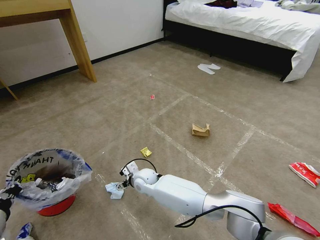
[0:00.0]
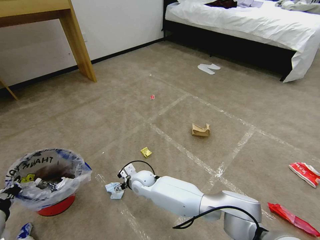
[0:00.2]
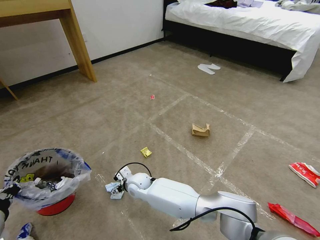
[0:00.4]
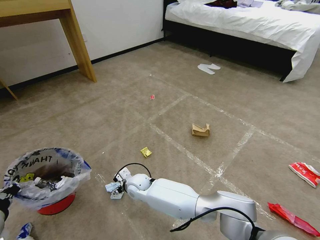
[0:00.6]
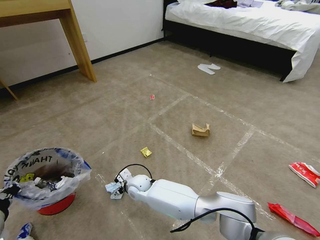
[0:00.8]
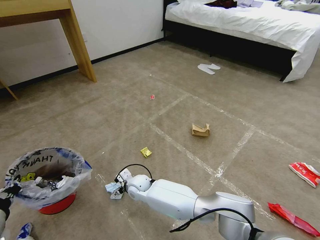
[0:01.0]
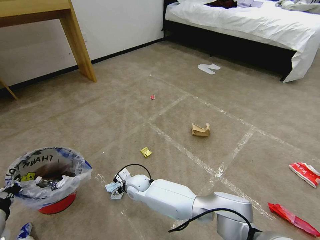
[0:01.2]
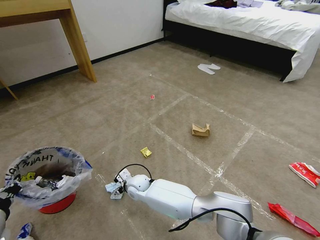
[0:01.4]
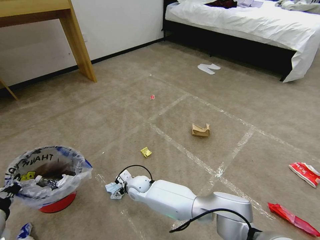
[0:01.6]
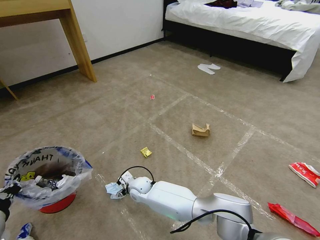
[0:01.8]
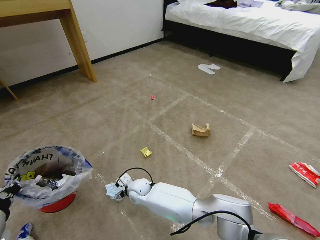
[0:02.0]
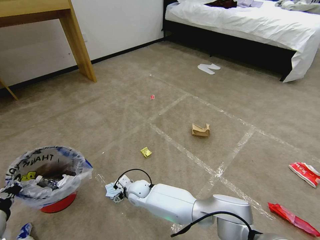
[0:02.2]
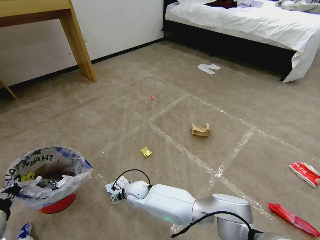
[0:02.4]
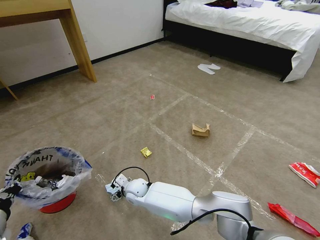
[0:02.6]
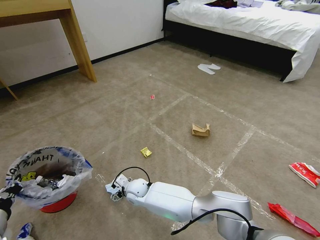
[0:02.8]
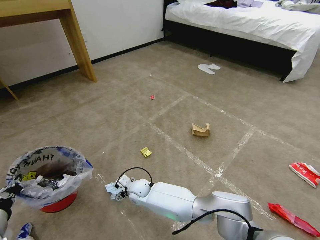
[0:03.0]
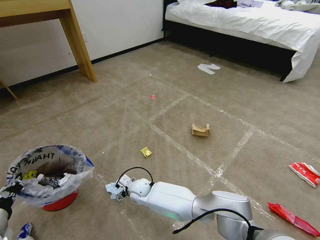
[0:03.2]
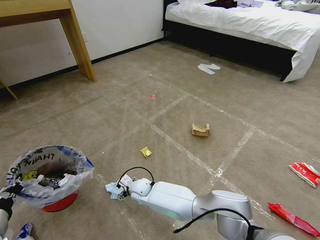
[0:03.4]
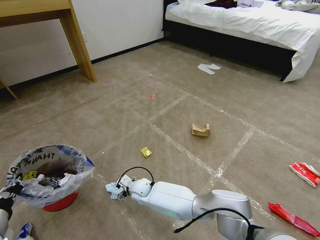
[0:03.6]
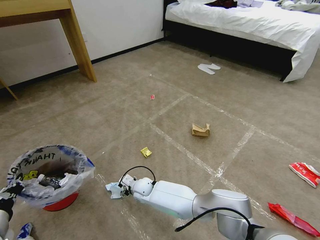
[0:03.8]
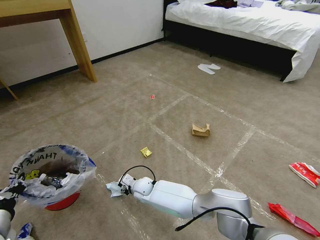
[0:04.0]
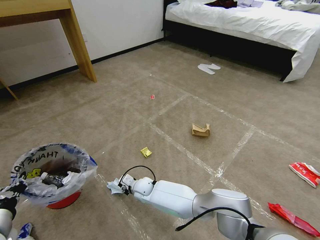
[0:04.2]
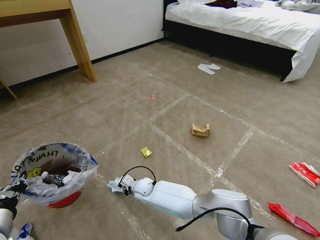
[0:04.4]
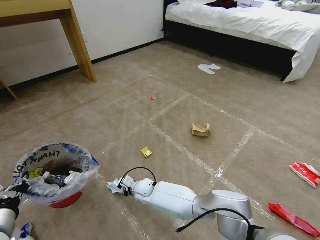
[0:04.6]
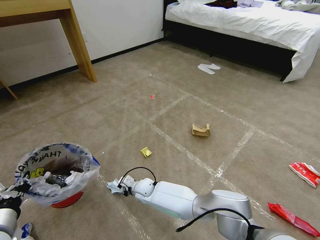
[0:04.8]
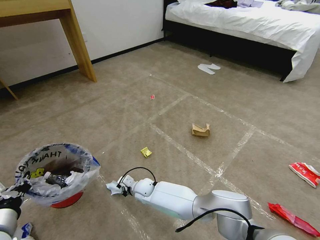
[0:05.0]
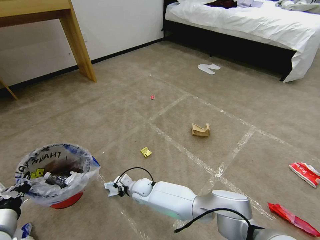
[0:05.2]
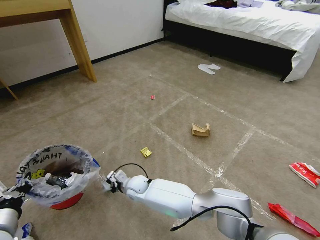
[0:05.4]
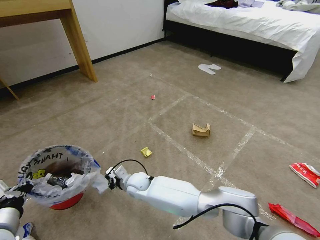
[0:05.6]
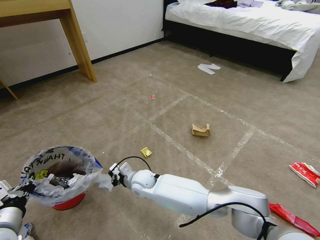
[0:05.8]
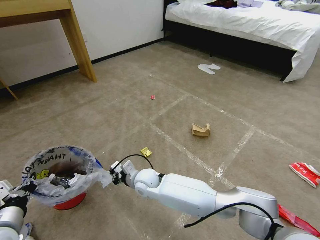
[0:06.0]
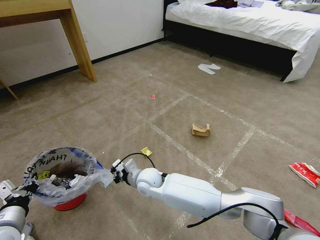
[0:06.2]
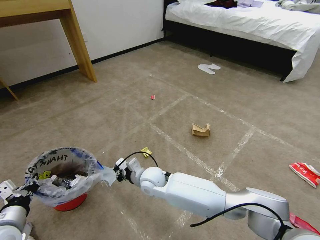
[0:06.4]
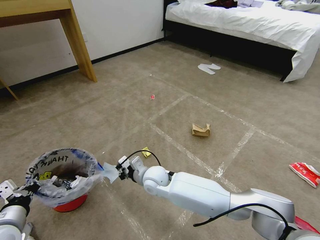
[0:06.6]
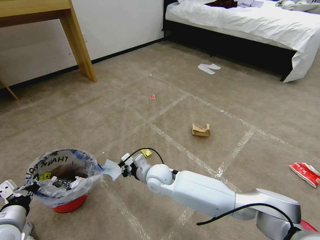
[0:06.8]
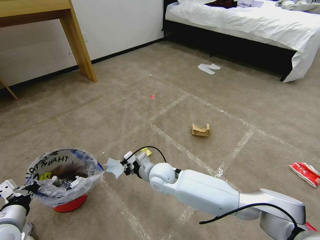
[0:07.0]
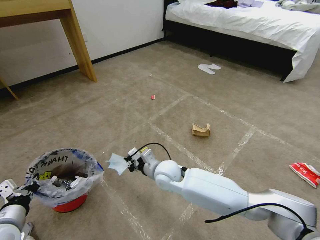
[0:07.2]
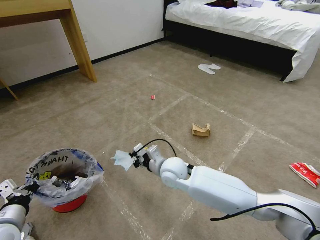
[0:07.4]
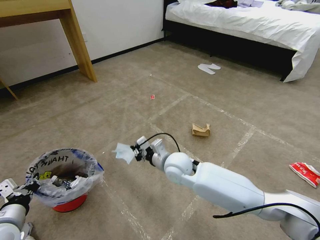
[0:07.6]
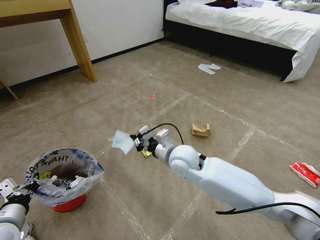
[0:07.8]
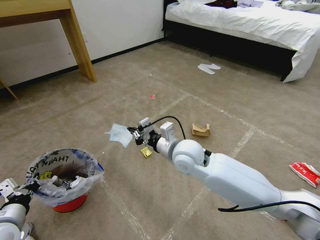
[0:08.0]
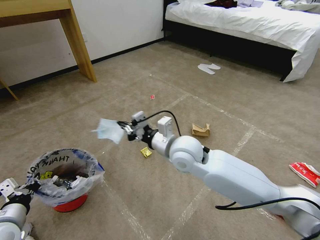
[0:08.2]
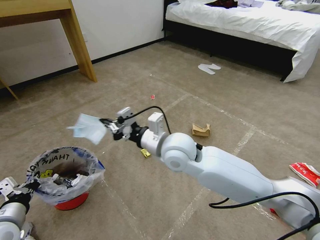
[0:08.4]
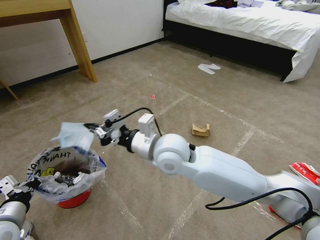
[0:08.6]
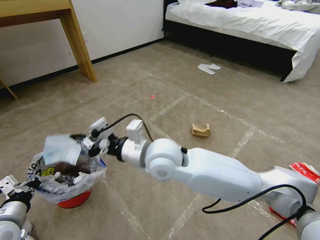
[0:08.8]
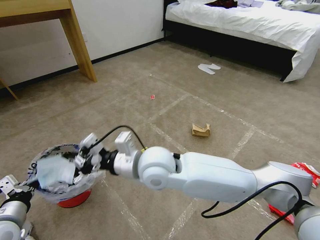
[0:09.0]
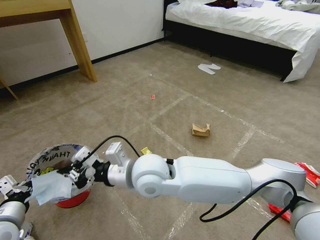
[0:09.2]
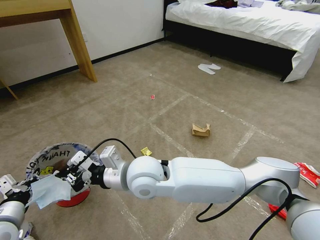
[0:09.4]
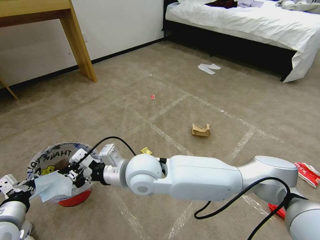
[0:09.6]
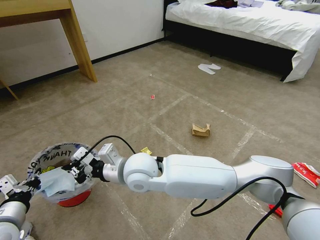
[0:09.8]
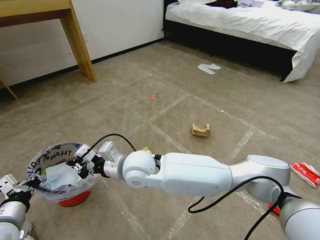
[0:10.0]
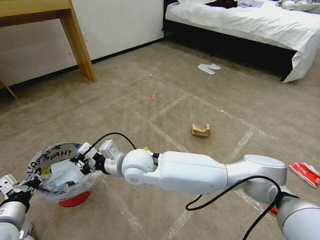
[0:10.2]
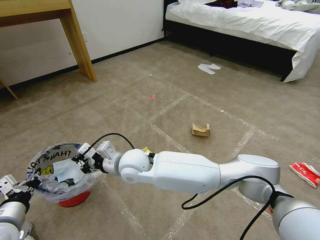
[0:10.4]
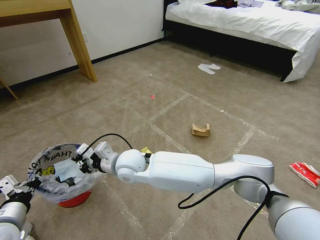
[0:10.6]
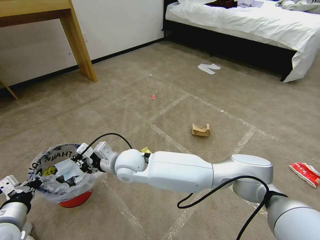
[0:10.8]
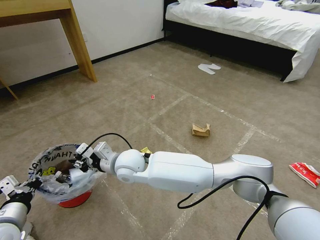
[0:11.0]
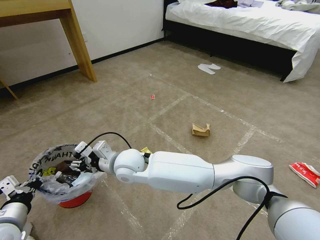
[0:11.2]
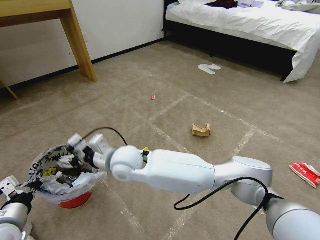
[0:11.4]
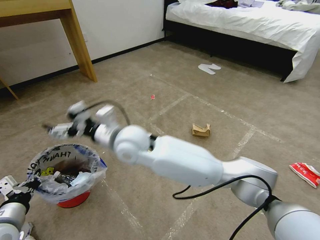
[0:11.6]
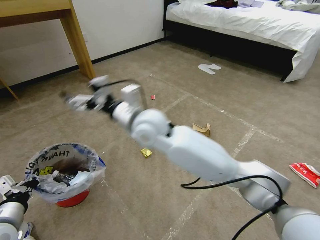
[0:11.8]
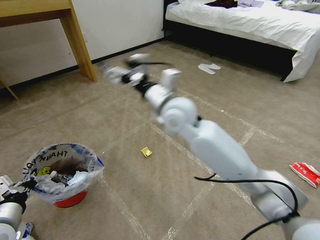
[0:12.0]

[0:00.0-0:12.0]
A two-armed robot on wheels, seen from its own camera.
Task of the whole recording: Pick up the trash bin and place the garbage on the floor into it.
0:00.0 to 0:01.6: There are only small adjustments of the grippers.
0:01.6 to 0:03.0: The grippers stay close to where they were, moving slightly.
0:03.0 to 0:04.4: The right gripper closes.
0:04.4 to 0:06.0: The right gripper travels upward by about 10 cm.
0:06.0 to 0:07.6: The right gripper is displaced to the right and upward by approximately 15 cm.
0:07.6 to 0:09.0: The right gripper shifts approximately 15 cm upward, to the left and backward.
0:09.0 to 0:10.4: The right gripper shifts approximately 10 cm downward, to the left and forward.
0:10.4 to 0:12.0: The right gripper shifts about 20 cm upward, to the right and forward, and opens up.

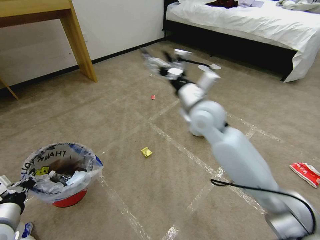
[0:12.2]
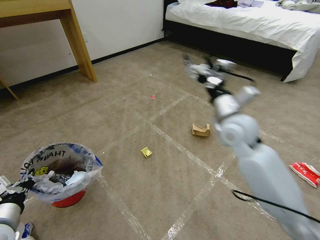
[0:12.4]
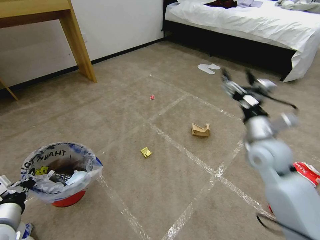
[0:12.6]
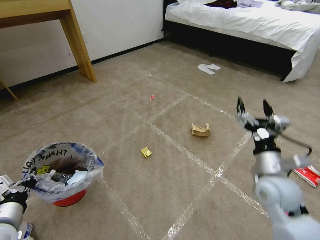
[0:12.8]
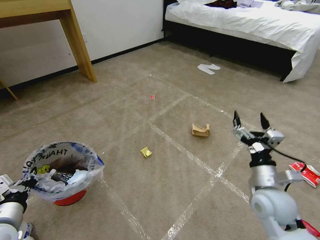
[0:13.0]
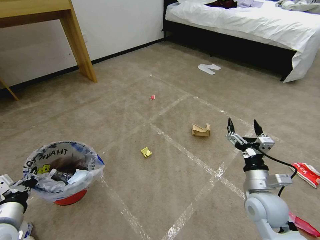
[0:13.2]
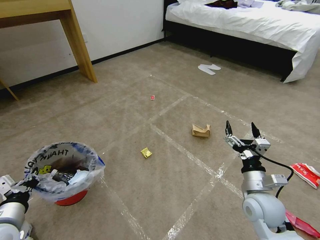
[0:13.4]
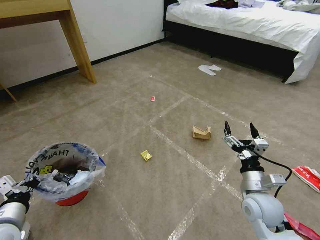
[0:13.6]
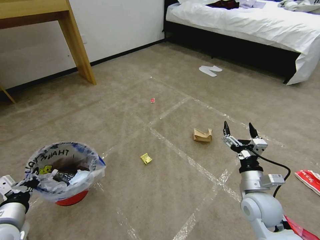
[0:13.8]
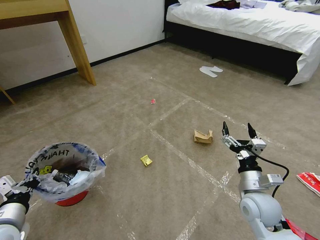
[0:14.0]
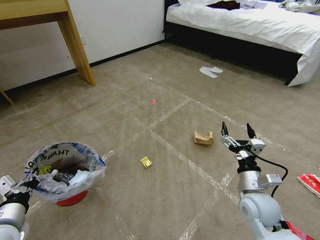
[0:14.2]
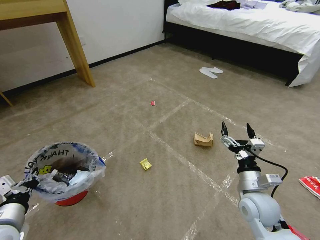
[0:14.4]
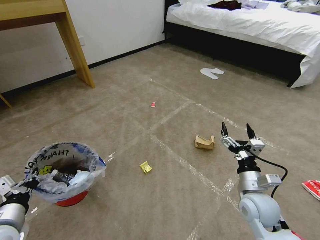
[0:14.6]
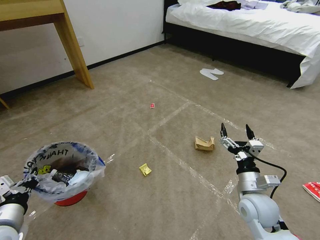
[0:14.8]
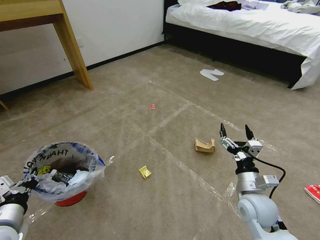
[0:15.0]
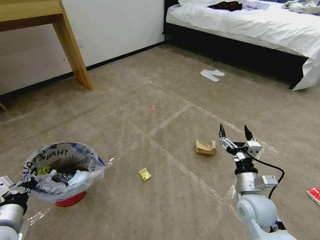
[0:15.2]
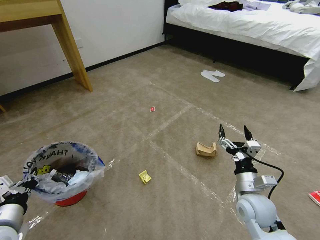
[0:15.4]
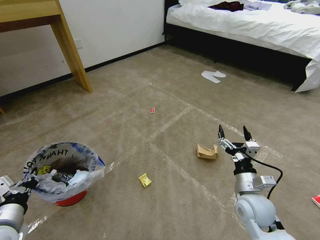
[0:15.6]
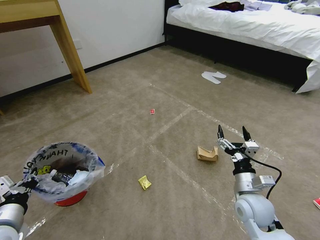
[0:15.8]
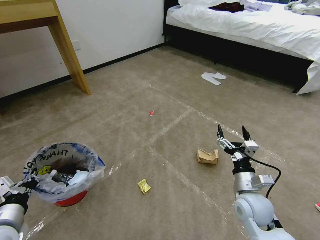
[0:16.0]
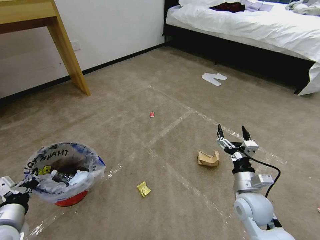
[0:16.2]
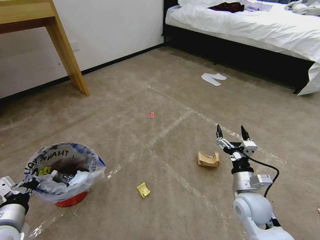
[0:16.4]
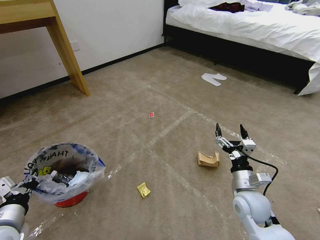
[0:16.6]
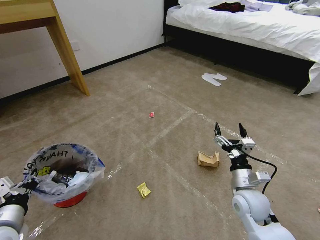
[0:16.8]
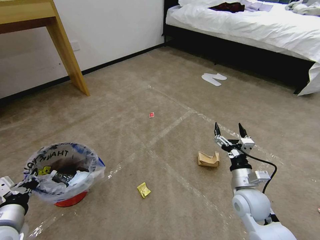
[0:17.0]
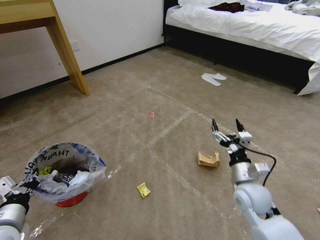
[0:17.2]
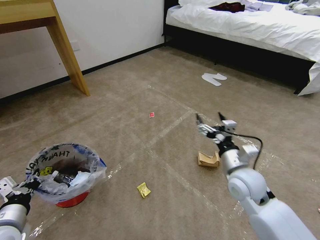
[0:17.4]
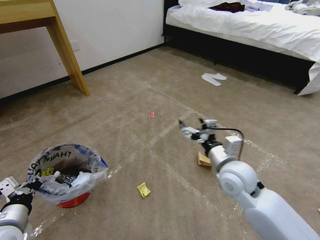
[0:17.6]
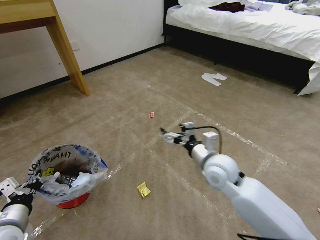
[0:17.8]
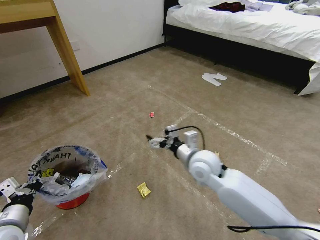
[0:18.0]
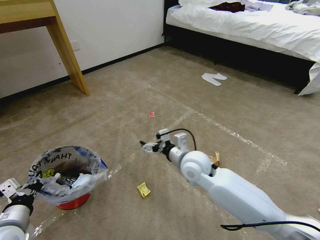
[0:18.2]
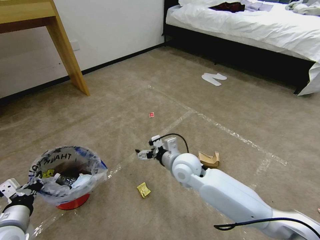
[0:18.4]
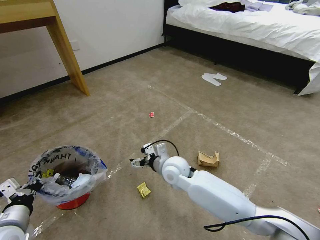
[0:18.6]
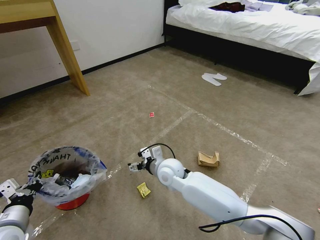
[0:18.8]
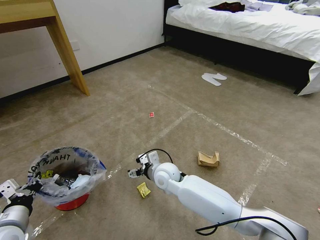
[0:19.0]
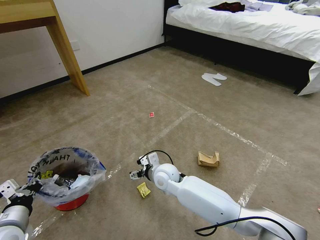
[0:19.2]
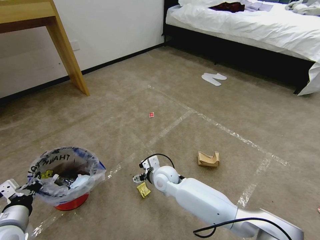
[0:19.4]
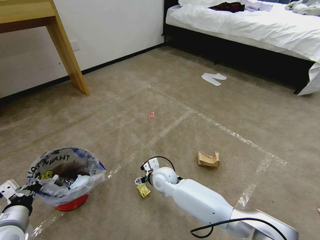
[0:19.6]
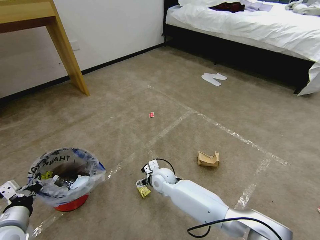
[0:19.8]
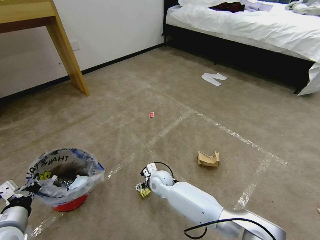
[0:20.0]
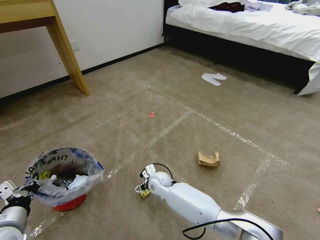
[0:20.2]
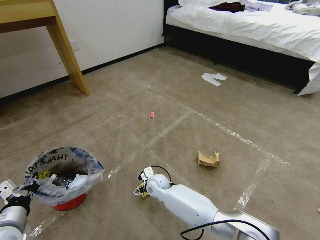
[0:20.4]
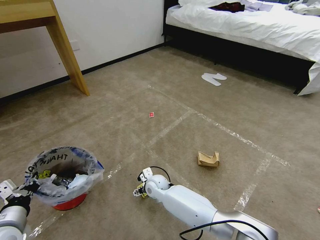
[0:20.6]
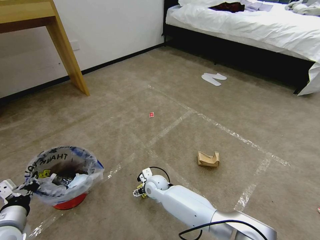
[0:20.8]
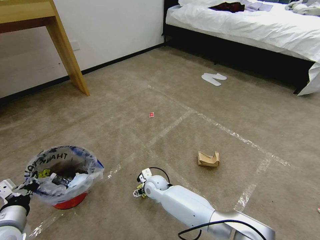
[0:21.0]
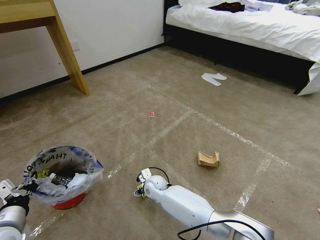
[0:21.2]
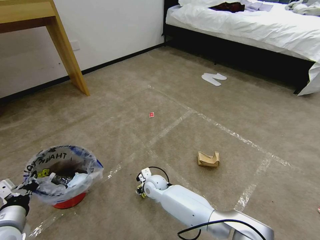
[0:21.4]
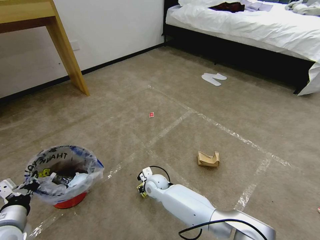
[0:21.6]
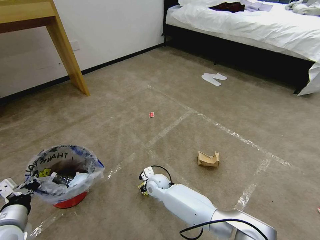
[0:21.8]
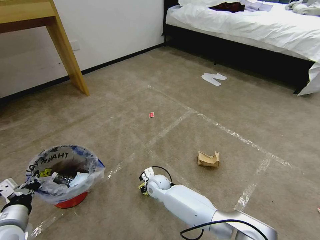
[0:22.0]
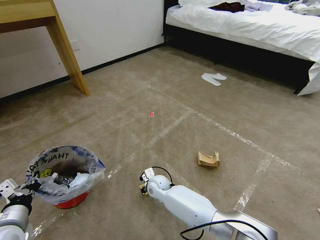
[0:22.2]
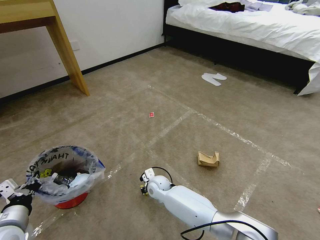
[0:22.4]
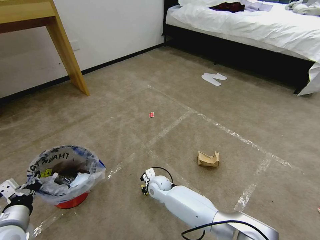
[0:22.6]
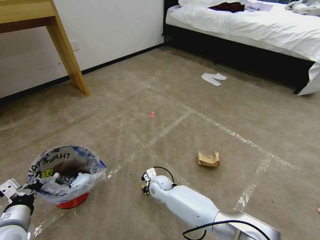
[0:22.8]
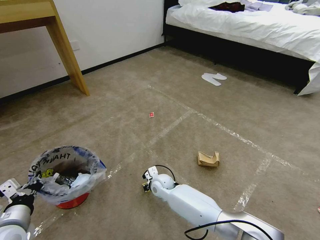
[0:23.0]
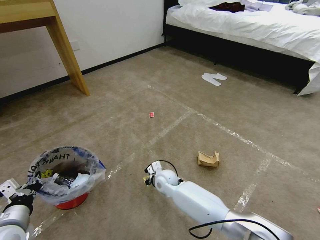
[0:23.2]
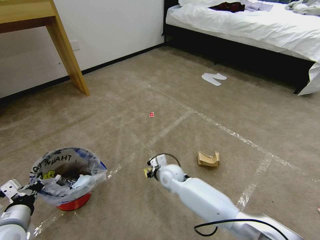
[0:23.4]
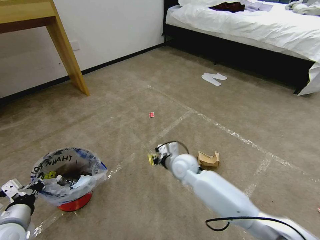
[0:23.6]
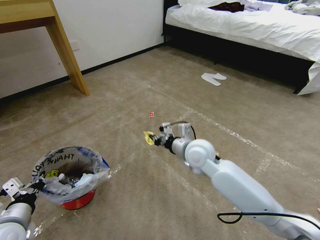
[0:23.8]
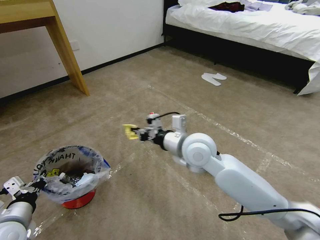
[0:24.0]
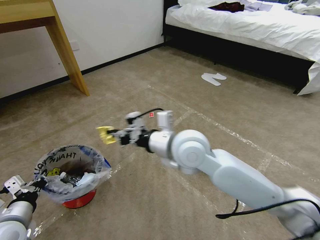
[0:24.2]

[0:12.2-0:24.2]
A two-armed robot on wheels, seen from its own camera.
Task of the whole recording: Pick up the trash bin and place the garbage on the floor into it.
0:12.2 to 0:13.8: The right gripper moves downward, backward and to the right, about 30 cm.
0:13.8 to 0:15.2: The two grippers keep their place.
0:15.2 to 0:16.6: The grippers stay close to where they were, moving slightly.
0:16.6 to 0:18.2: The right gripper is displaced to the left, forward and upward by roughly 20 cm.
0:18.2 to 0:19.8: The right gripper goes approximately 20 cm downward and to the left.
0:19.8 to 0:21.2: The right gripper changes place by about 5 cm.
0:21.2 to 0:22.6: The right gripper closes up.
0:22.6 to 0:24.2: The right gripper moves upward, about 35 cm.
